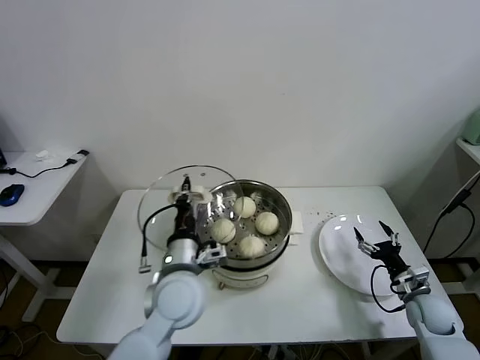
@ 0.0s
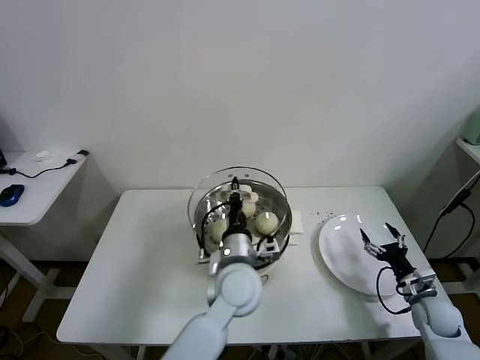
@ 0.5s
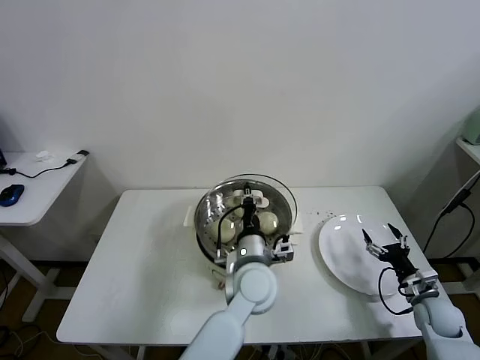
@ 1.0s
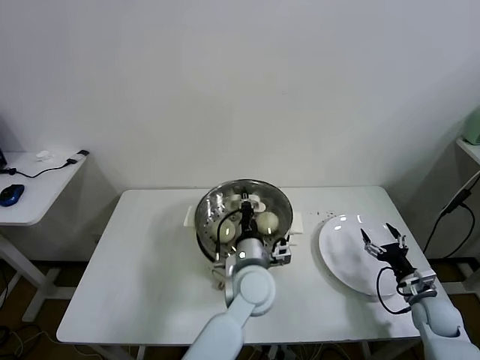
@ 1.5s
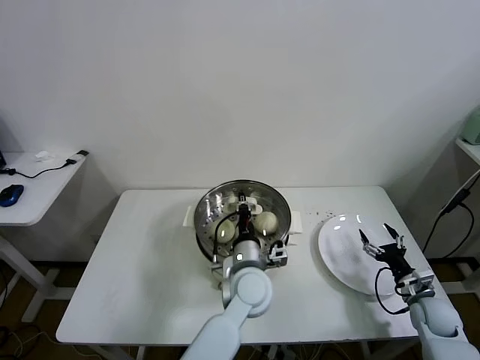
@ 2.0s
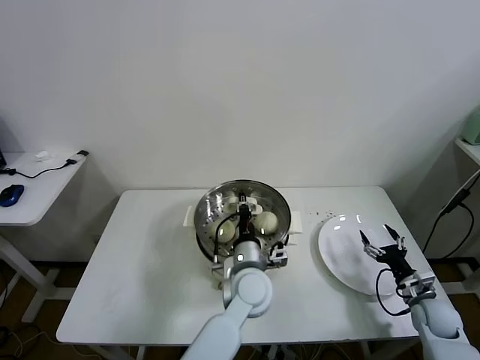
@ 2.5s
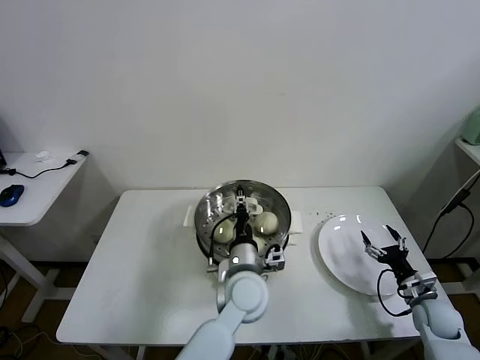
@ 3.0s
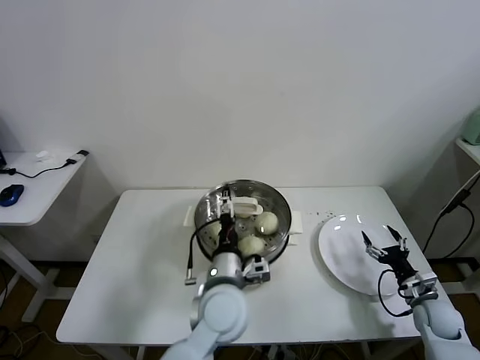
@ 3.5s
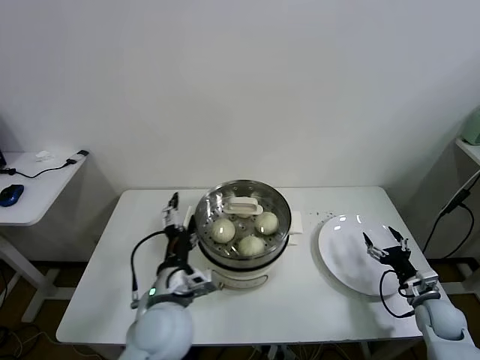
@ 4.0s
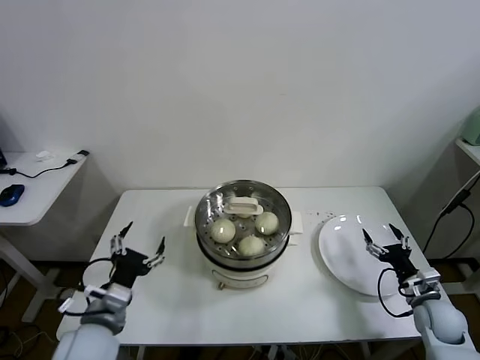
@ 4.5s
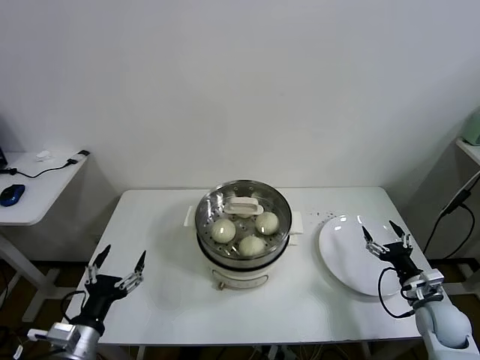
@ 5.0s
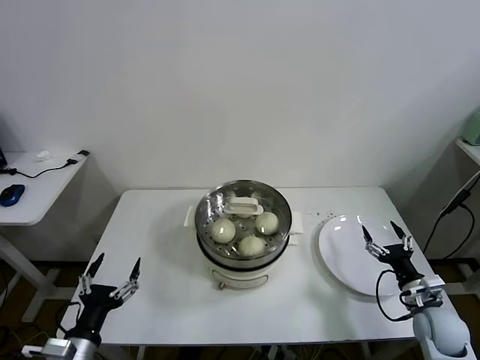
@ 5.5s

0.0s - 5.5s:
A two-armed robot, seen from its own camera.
Task of the whole recording: take steamed baozi put them in steamer.
Step, 0.0s - 3.0s: Place the pot lid on the steamer with left gripper.
0.0s - 2.0s: The left gripper heads to the right and downward, covering some 15 cm.
2.0s - 3.5s: The left gripper changes place by about 5 cm, and opens its fingers.
3.5s - 5.5s: The right gripper ends up approximately 5 cm from where it was. Meanwhile the left gripper is displaced to the left and backward by approximately 35 cm.

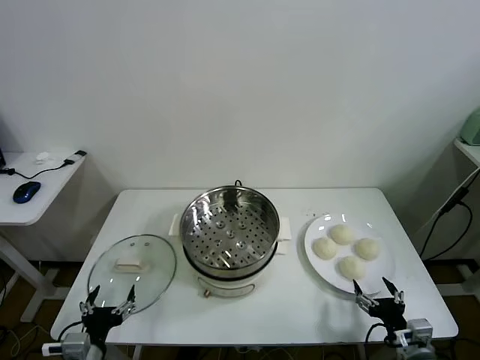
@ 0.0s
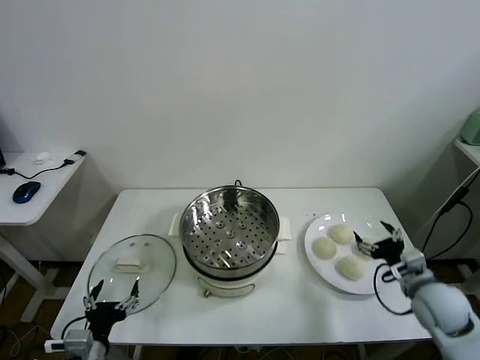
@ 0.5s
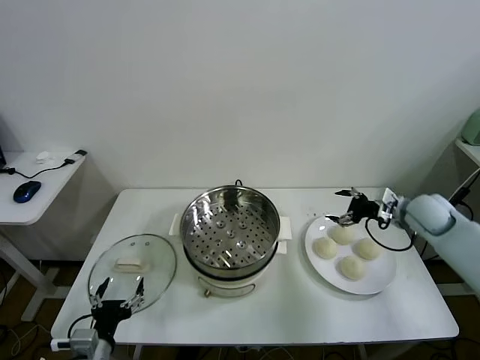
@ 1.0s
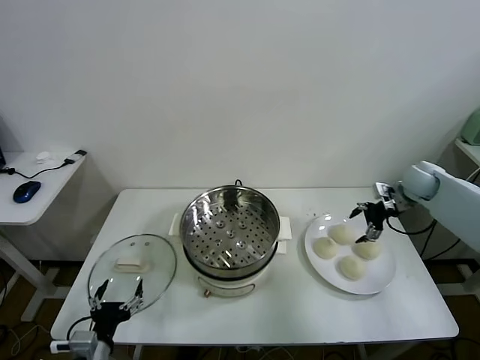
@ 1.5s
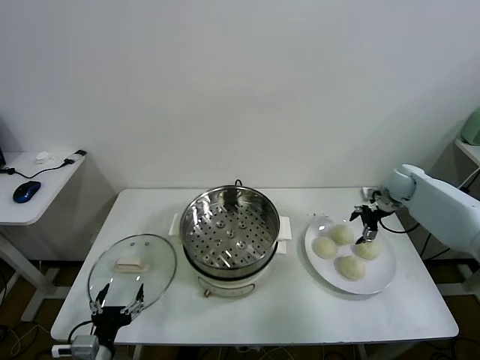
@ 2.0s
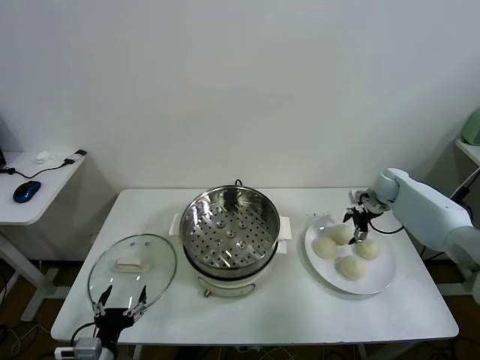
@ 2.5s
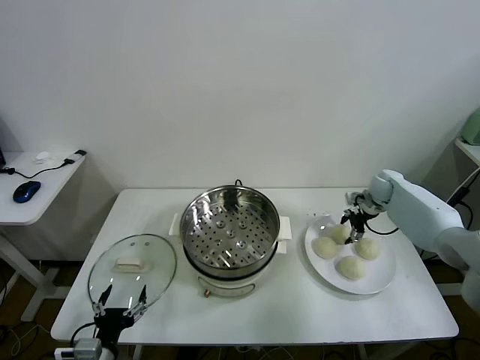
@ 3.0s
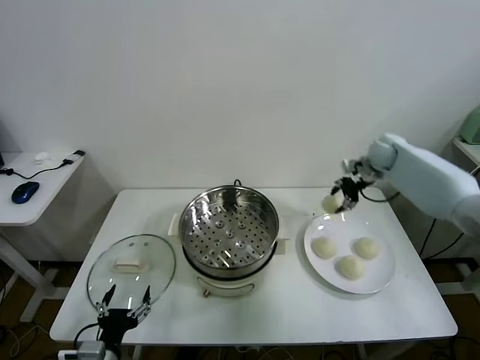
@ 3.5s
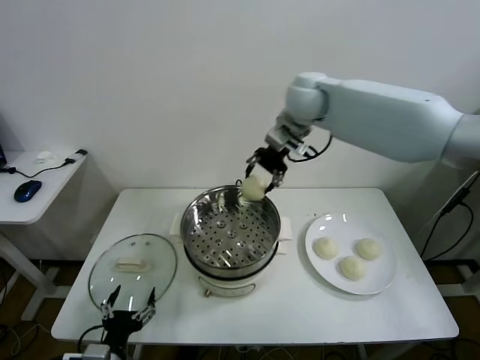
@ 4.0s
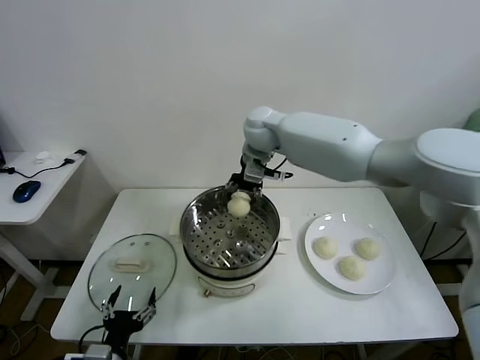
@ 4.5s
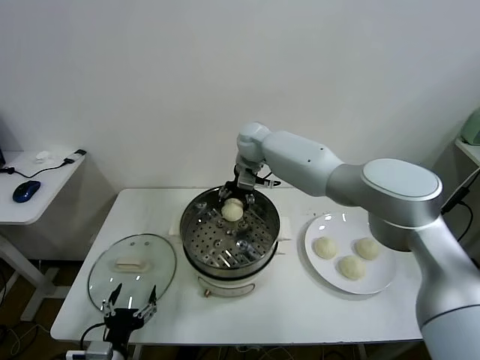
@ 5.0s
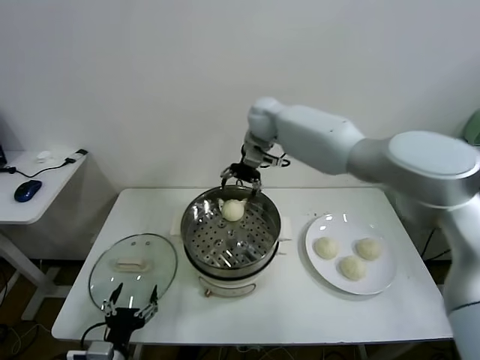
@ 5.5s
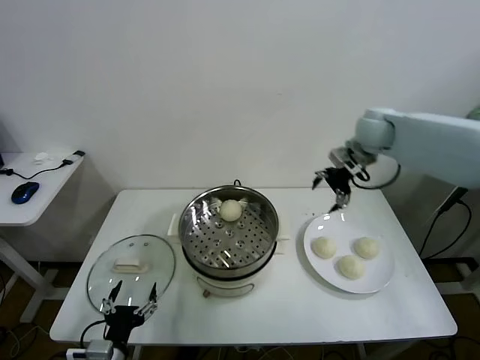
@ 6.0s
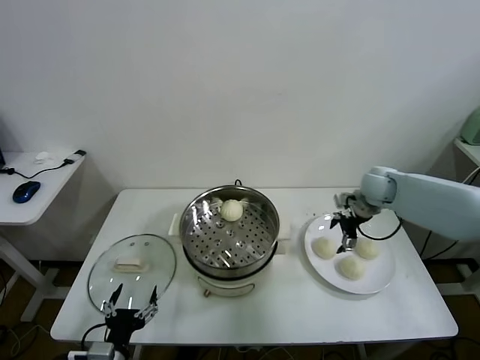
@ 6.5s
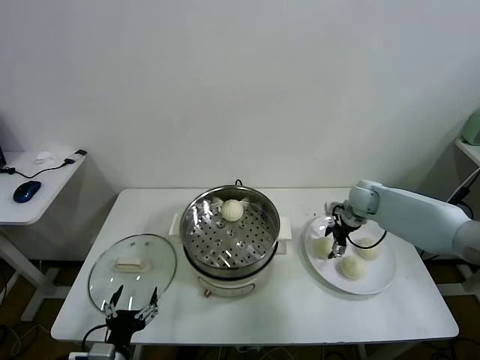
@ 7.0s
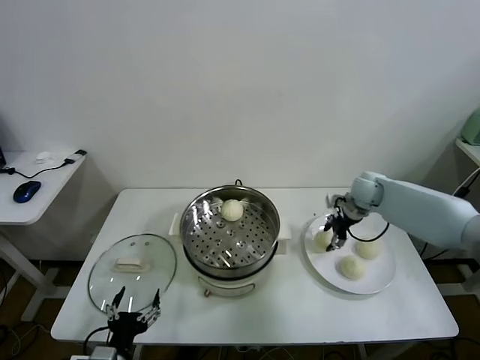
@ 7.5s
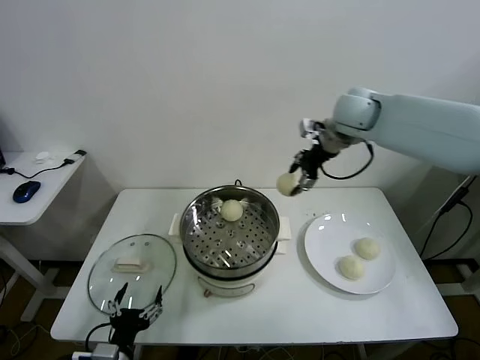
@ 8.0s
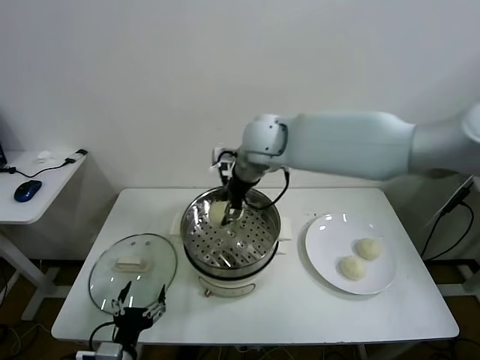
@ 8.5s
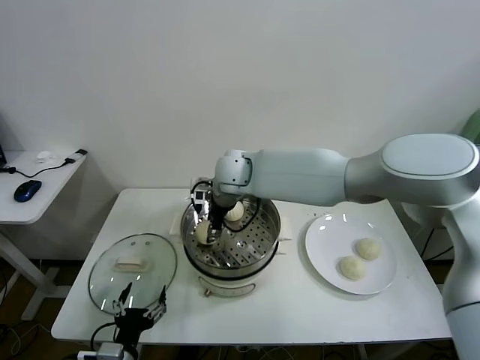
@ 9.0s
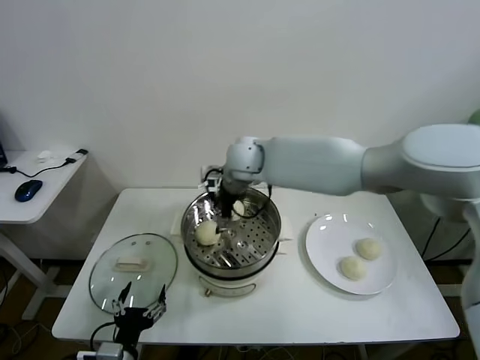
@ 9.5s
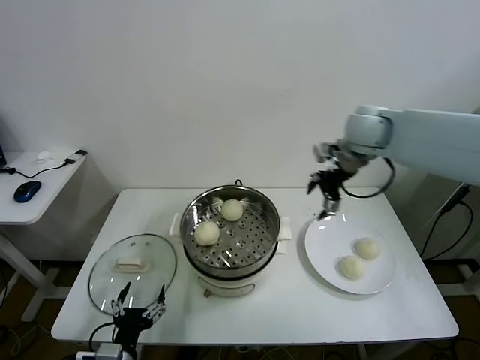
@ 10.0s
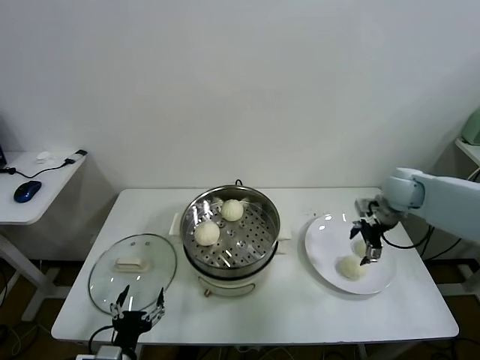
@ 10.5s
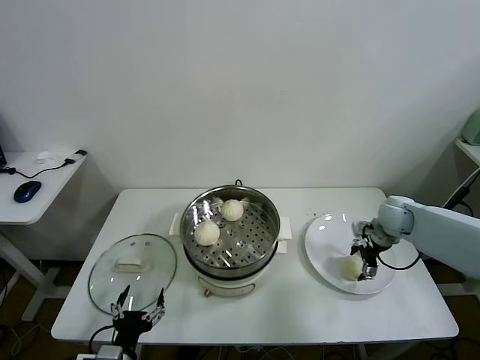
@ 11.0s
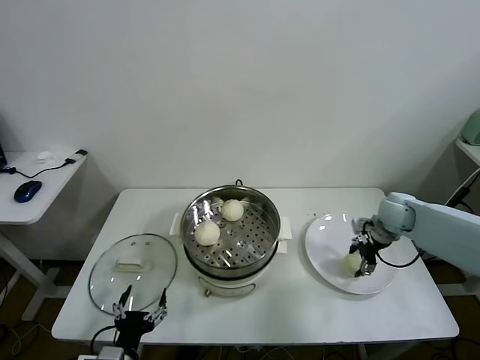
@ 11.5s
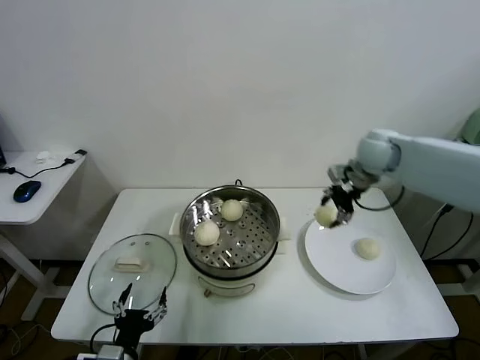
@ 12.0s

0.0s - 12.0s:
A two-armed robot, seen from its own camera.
Task of the whole recording: take steamed baozi put them in steamer.
Step, 0.0s - 3.0s: Grasp the baozi in the plate with right gripper.
Step, 3.5s - 5.0s: Place the baozi on the steamer with right gripper.
Step, 5.5s - 7.0s: Grasp the baozi in the plate with right gripper.
Step, 7.5s - 9.0s: Place the baozi on the steamer with right gripper.
Step, 9.5s - 11.0s: Grasp the baozi in the plate with right gripper.
2.0s - 4.0s: The right gripper is displaced to the left and upward by about 40 cm, and closes up.
4.0s - 6.0s: The right gripper heads to the right and downward, covering about 30 cm, and opens up.
6.0s - 8.0s: The right gripper goes roughly 20 cm to the left and upward, and closes up.
8.0s - 10.0s: The right gripper travels to the right and downward by about 15 cm, and opens up.
10.0s - 12.0s: The right gripper heads to the left, covering about 5 cm, moves approximately 20 cm downward and comes back, and closes its fingers.

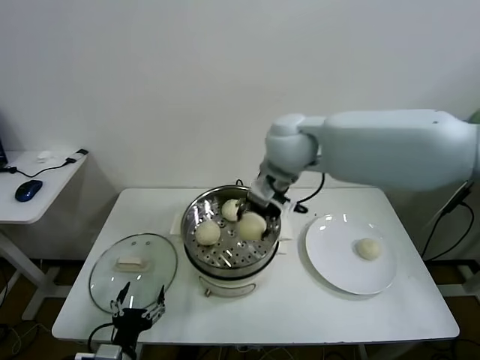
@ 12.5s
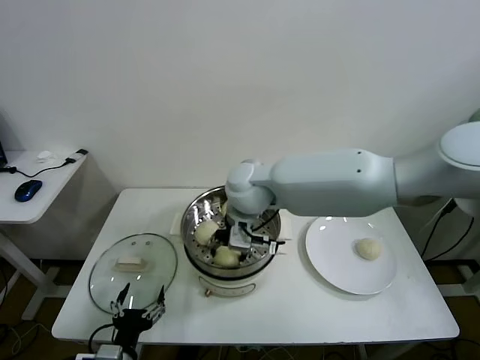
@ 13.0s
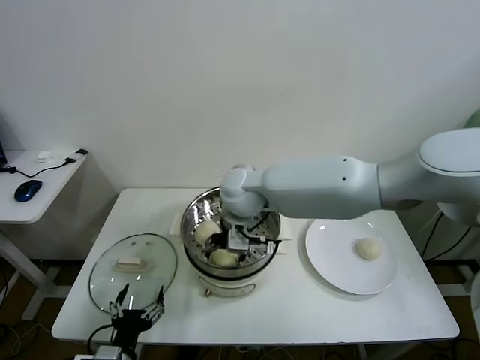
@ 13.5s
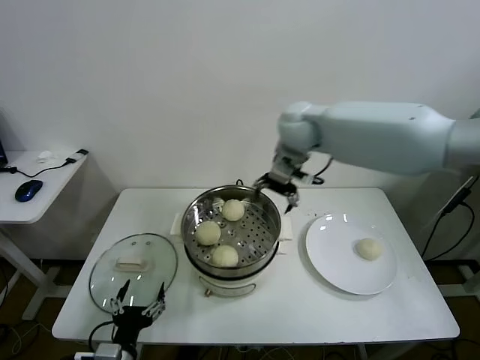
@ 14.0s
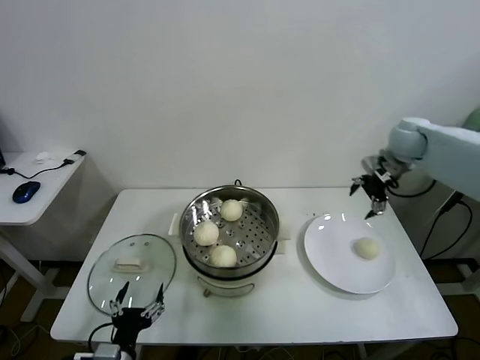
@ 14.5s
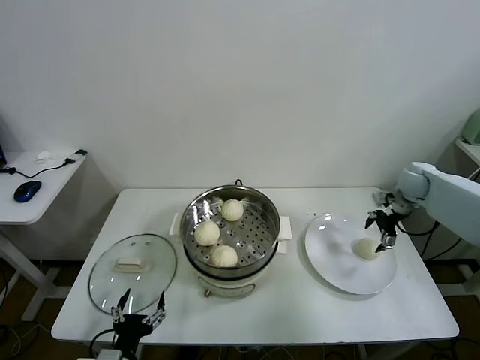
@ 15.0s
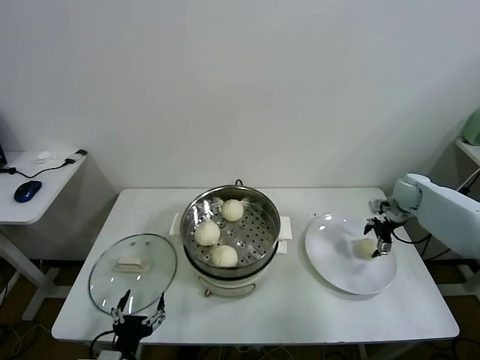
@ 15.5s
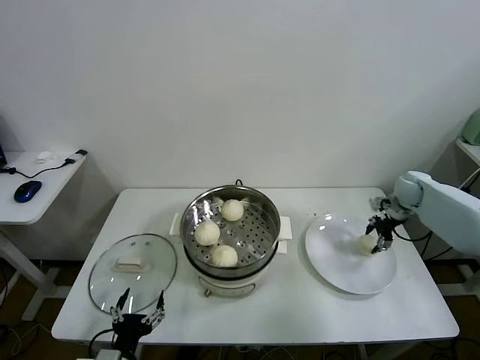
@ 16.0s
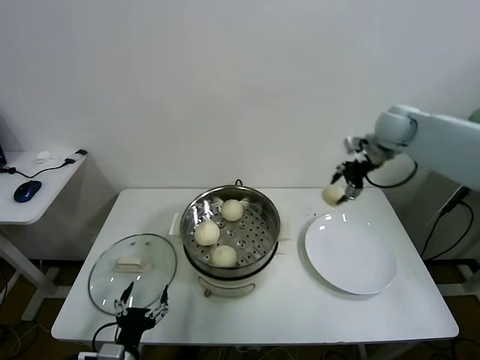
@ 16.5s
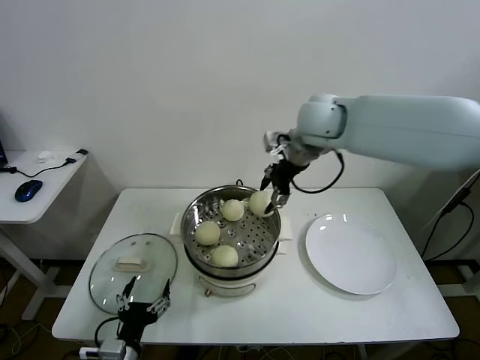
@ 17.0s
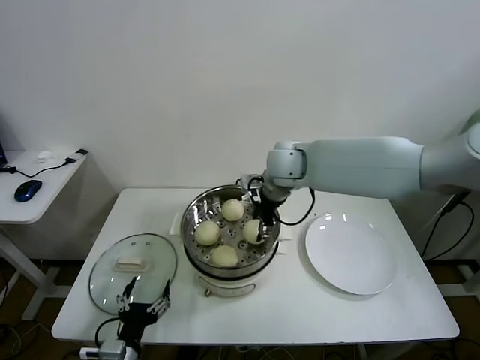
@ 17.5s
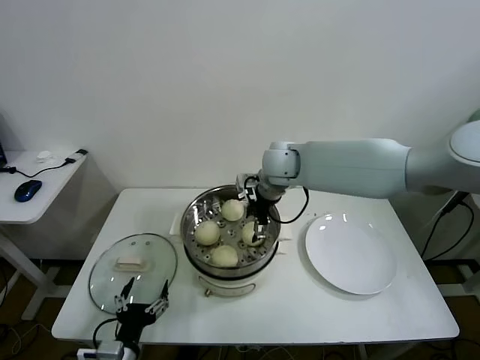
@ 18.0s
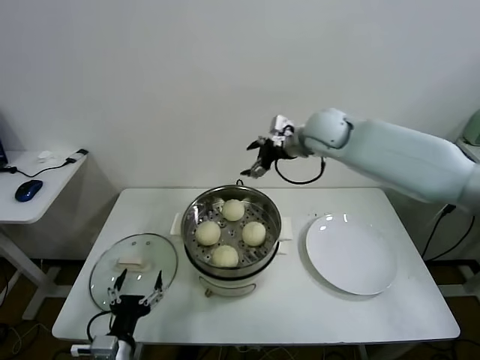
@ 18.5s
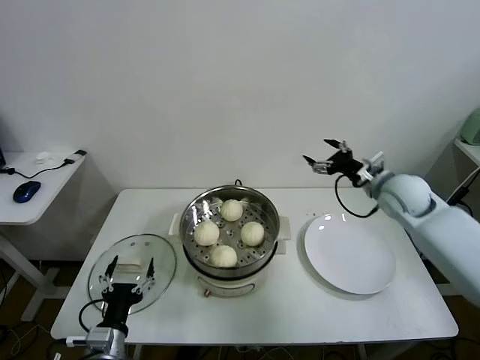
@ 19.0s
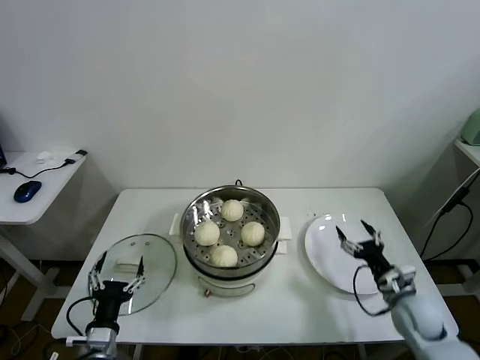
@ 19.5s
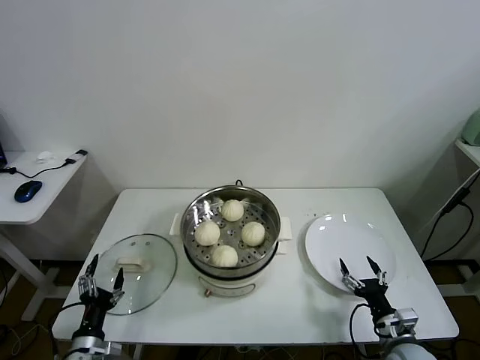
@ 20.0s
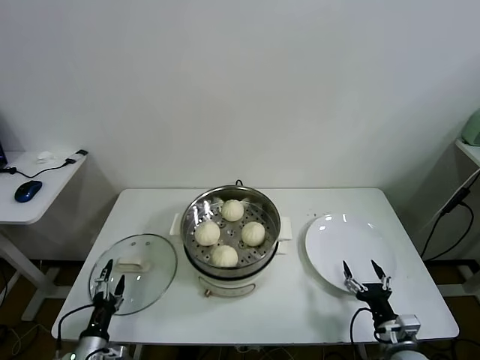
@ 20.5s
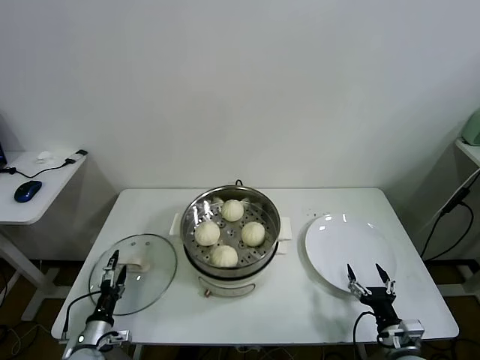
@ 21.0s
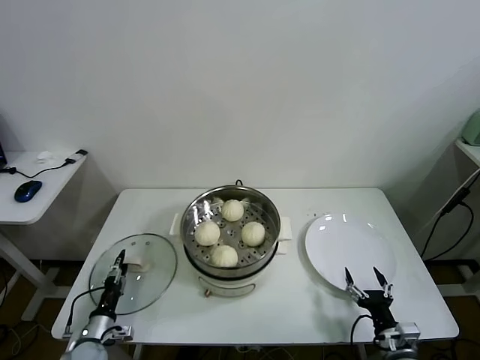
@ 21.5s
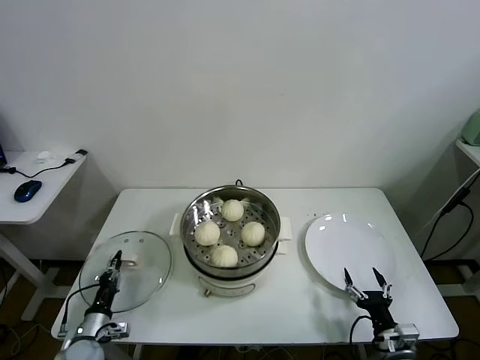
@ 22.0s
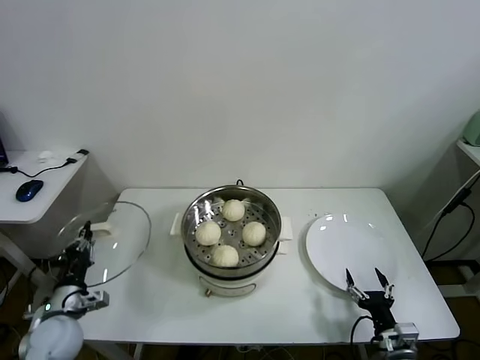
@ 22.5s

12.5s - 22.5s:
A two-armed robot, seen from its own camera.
Task of the whole recording: take steamed baozi put them in steamer.
Step, 12.5s - 13.5s: Place the baozi on the steamer with right gripper.
Step, 14.0s - 15.5s: Grasp the baozi in the plate with right gripper.
Step, 16.0s - 18.0s: Place the baozi on the steamer with right gripper.
Step, 18.5s - 21.5s: Grasp the pot lid with left gripper.
12.5s - 14.5s: The right gripper shifts about 35 cm to the right, and opens up.
14.5s - 16.5s: The right gripper shifts some 10 cm to the left, moves about 15 cm downward and comes back, and closes up.
16.5s - 18.5s: The right gripper goes about 15 cm to the left, and opens.
18.5s - 20.5s: The right gripper goes some 50 cm downward, backward and to the right; the left gripper moves to the left and downward, about 15 cm.
20.5s - 22.5s: The left gripper is displaced upward and forward by approximately 10 cm, and closes its fingers.
